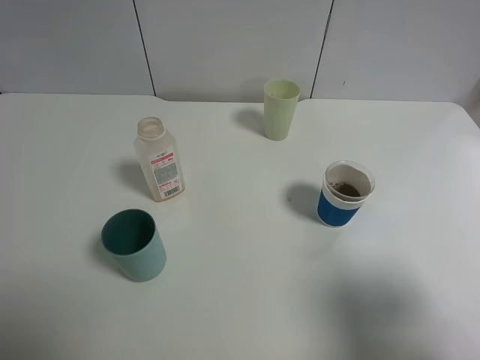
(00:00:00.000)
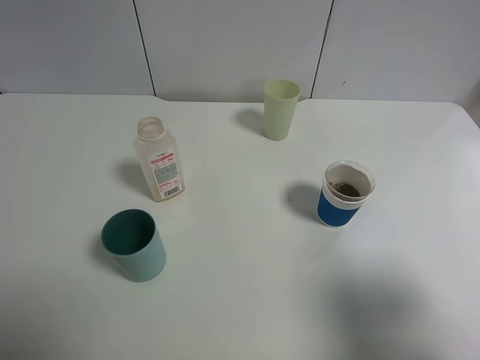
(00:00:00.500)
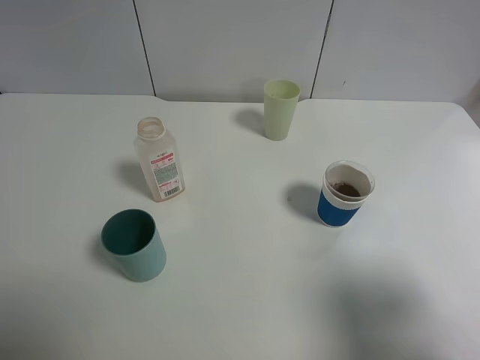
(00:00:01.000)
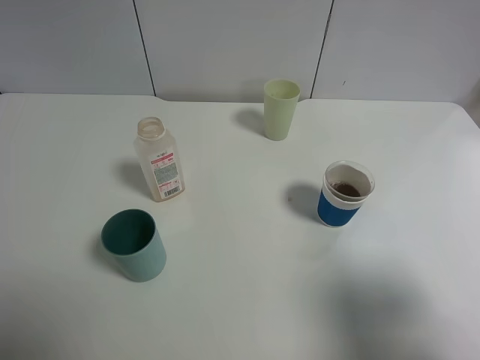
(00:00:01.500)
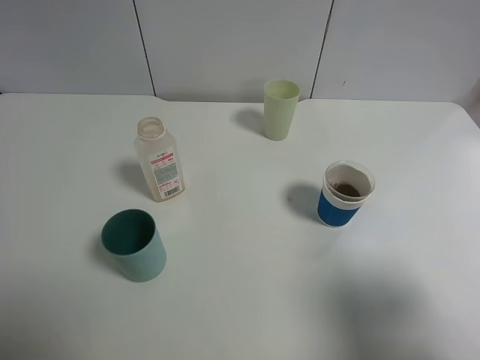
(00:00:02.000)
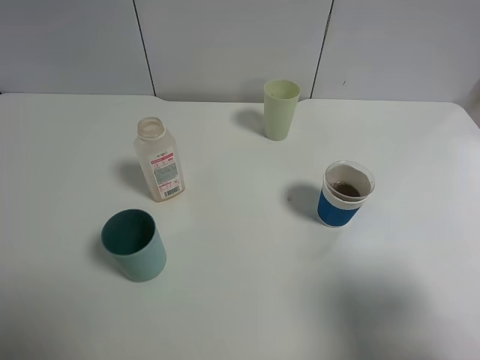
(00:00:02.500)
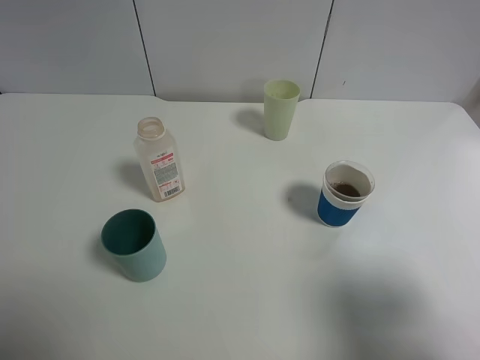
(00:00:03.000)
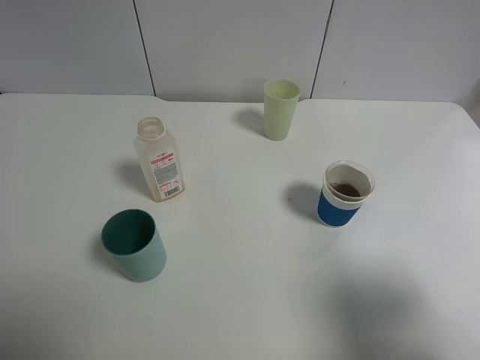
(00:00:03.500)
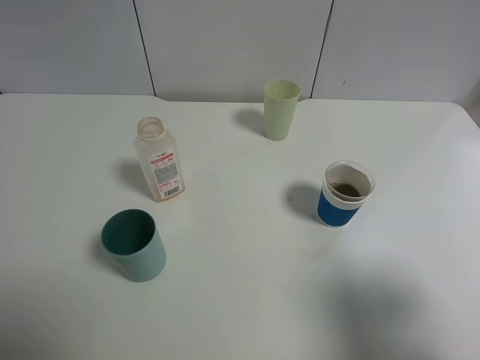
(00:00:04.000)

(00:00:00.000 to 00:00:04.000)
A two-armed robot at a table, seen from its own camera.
Task of the whole recording: use a gripper to hold the bottle of the drink and pour it into a random cup.
00:00:02.000 - 00:00:04.000: Neither gripper changes place.

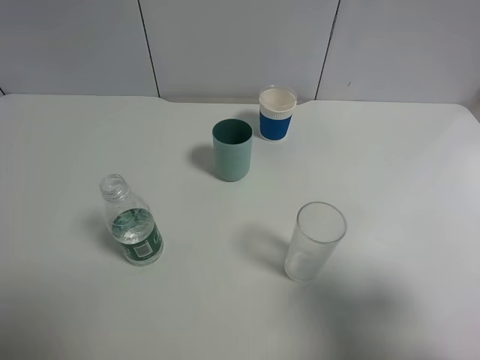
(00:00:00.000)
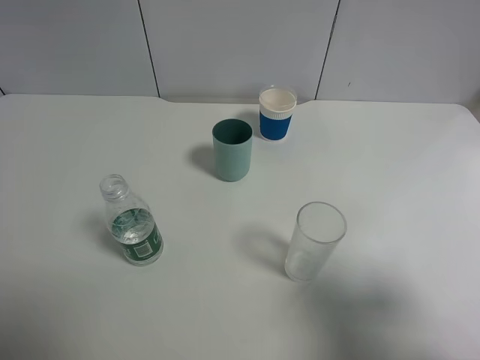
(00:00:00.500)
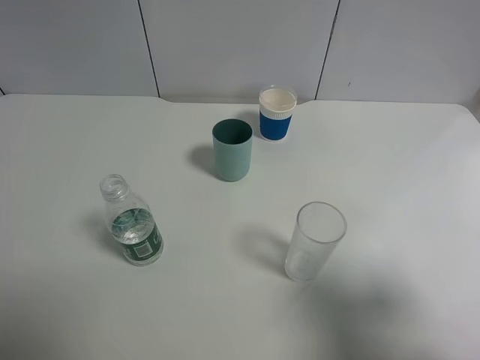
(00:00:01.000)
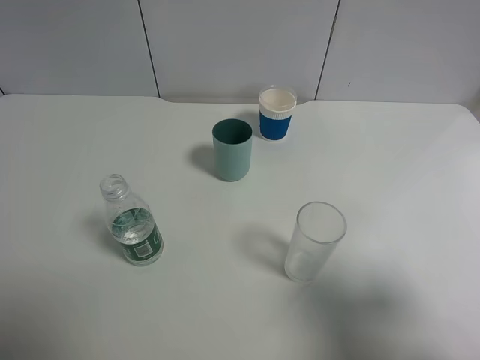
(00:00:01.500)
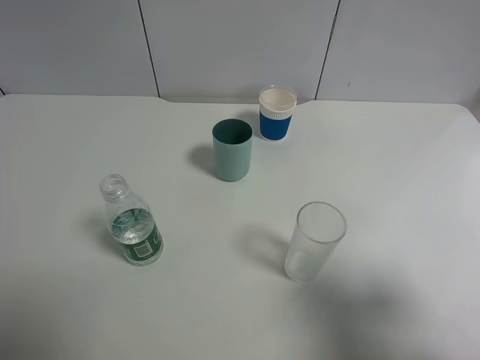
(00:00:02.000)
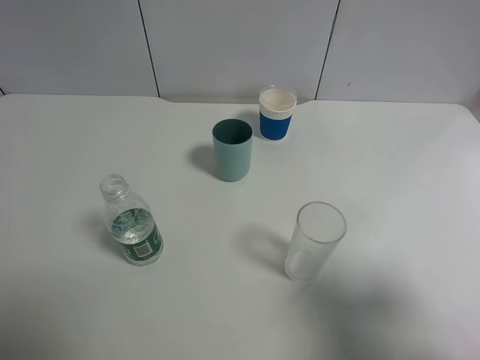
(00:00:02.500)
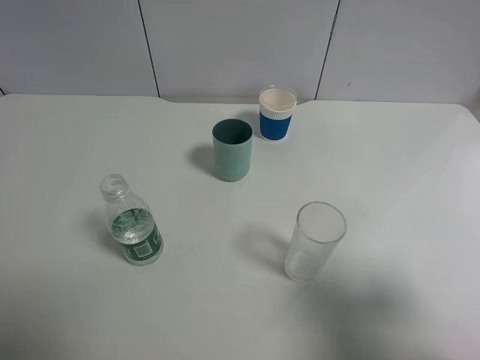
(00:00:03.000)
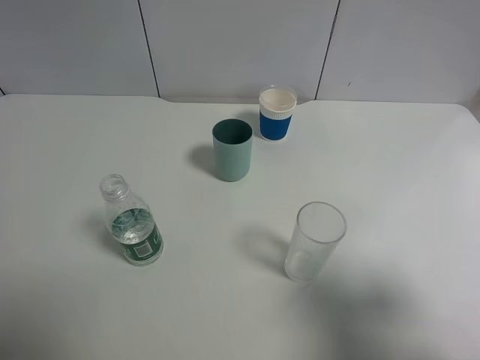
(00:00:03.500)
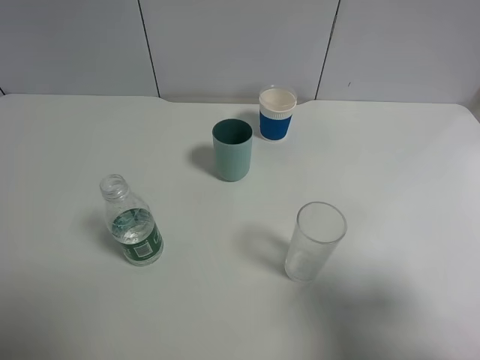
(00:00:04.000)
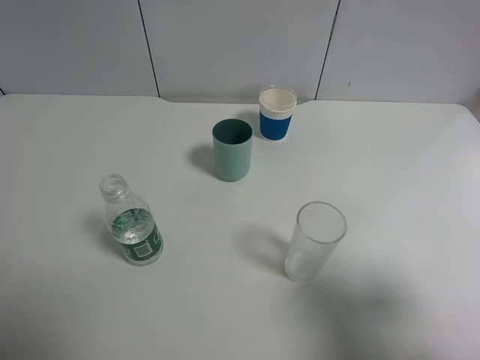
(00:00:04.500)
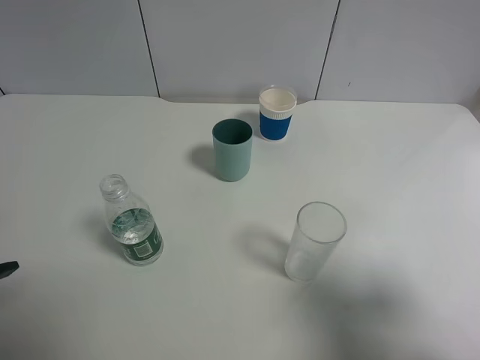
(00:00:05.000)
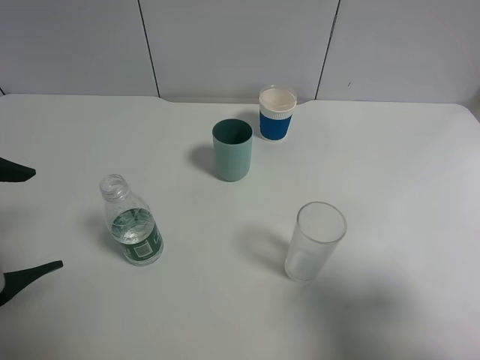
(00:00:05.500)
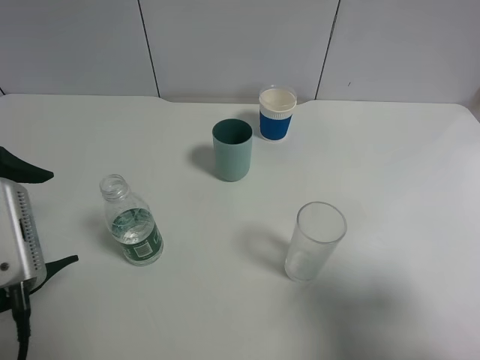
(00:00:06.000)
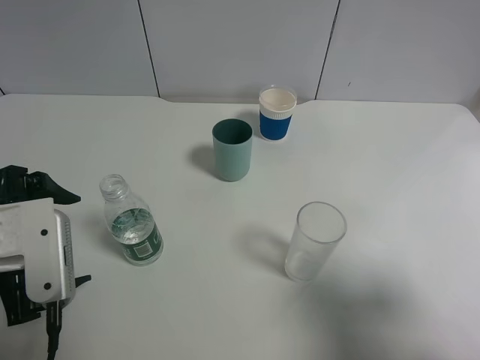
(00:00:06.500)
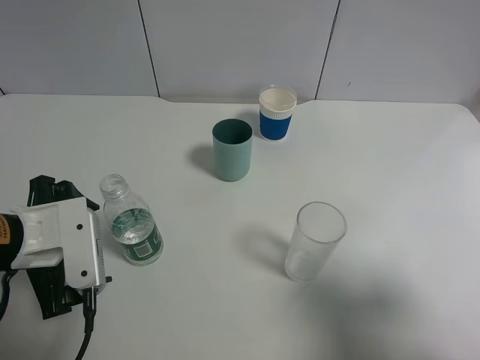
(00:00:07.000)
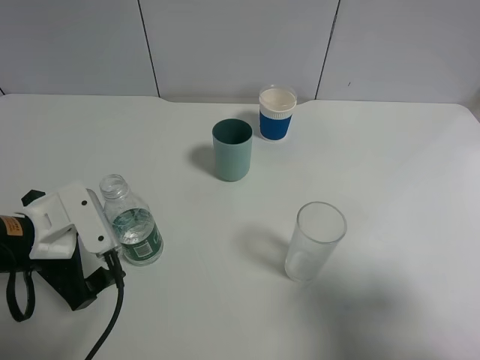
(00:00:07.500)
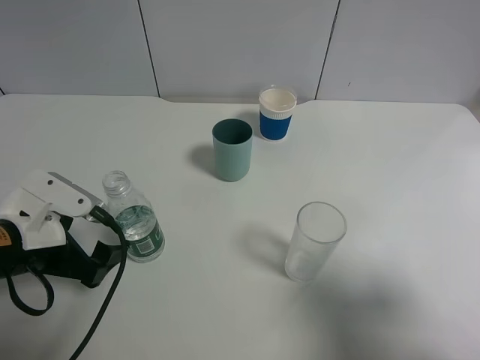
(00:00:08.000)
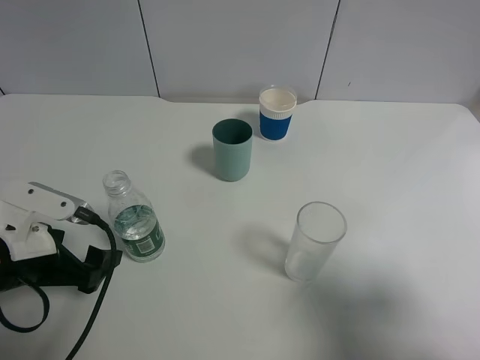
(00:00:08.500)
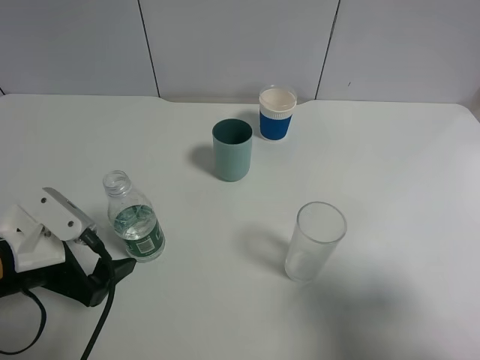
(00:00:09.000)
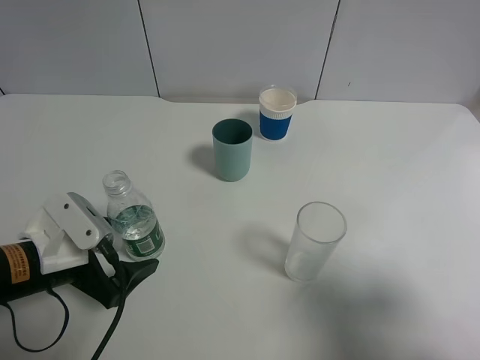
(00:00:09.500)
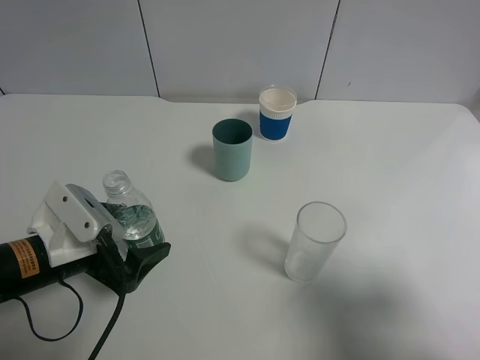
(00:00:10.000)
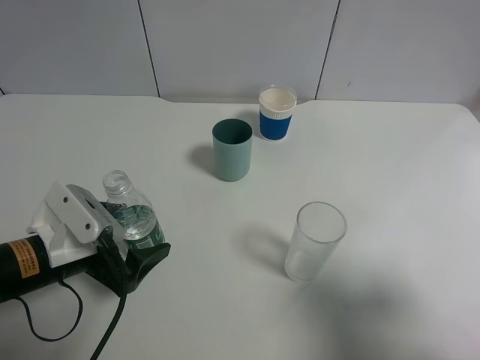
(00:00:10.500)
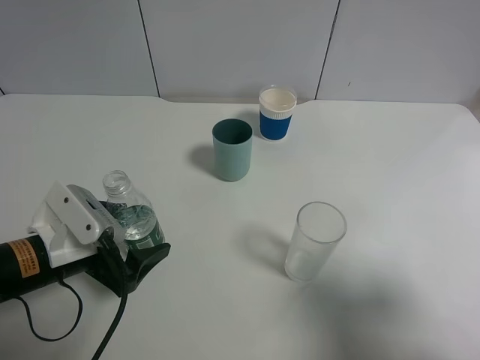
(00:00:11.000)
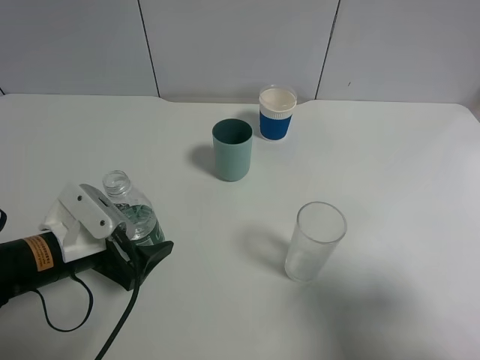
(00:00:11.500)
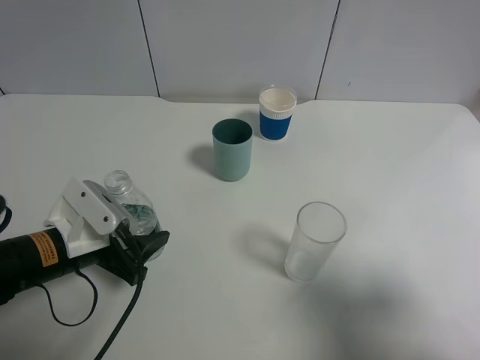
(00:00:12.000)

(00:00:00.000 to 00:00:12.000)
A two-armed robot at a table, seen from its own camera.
Task of the whole recording: use a gripper to hold the bottle of the drink and pour it into a random cup.
Step, 00:00:00.000 - 00:00:12.000: Grasp the mineral water bottle with the left gripper.
00:00:00.000 - 00:00:02.000: Both grippers stay about where they are.
00:00:04.000 - 00:00:06.000: The left gripper goes some 10 cm forward, downward and to the right.
00:00:06.000 - 00:00:08.000: The left gripper moves downward, approximately 10 cm.
00:00:10.000 - 00:00:12.000: The left gripper closes up.

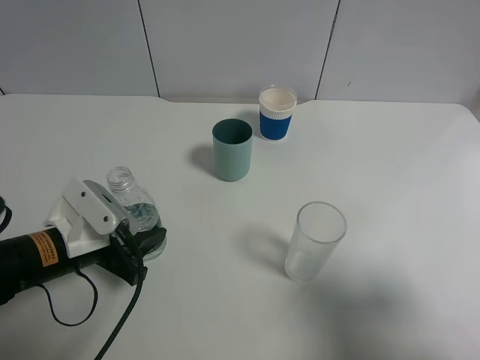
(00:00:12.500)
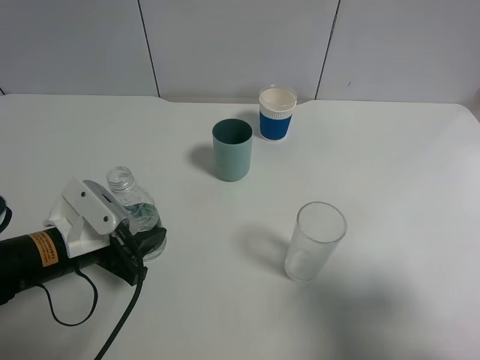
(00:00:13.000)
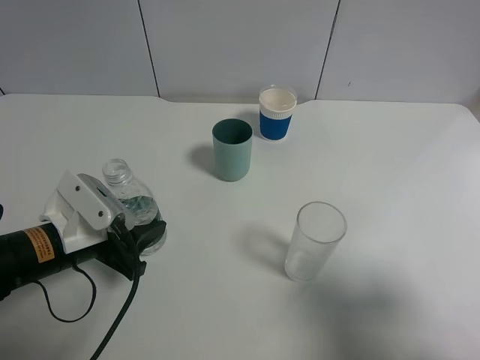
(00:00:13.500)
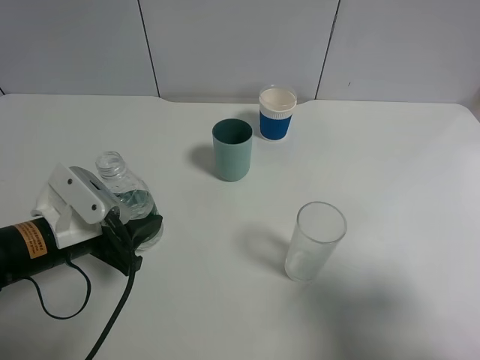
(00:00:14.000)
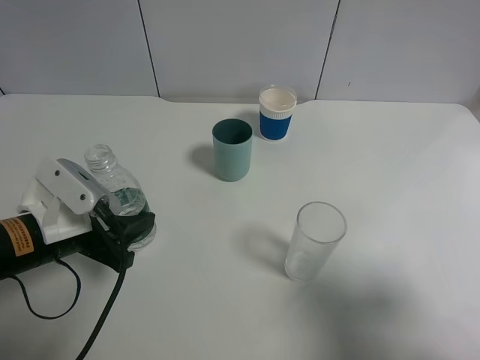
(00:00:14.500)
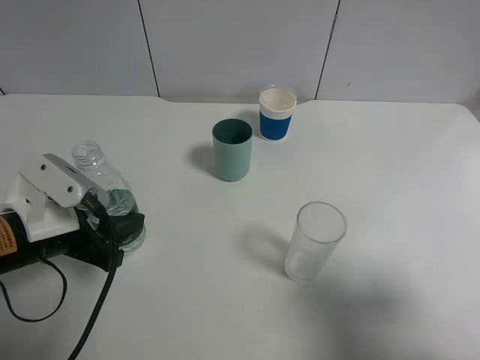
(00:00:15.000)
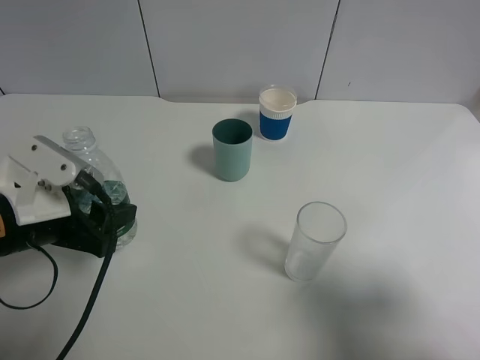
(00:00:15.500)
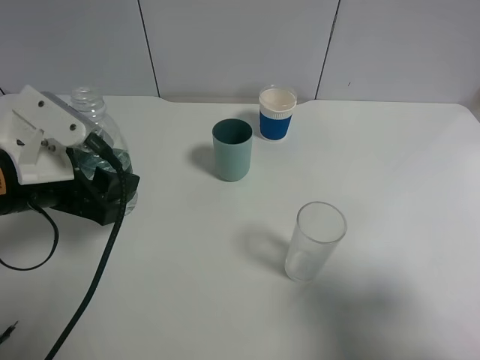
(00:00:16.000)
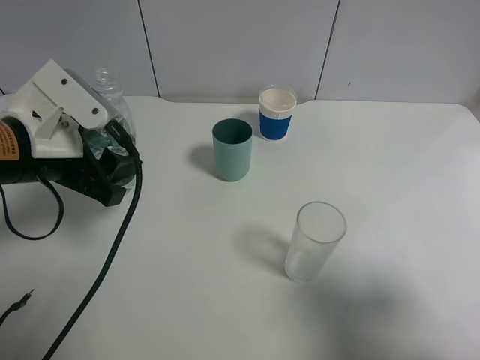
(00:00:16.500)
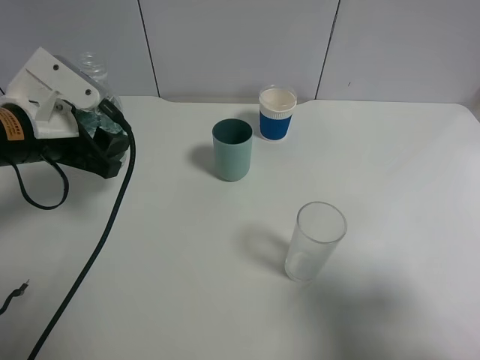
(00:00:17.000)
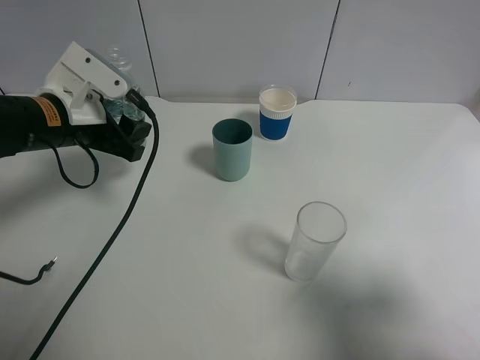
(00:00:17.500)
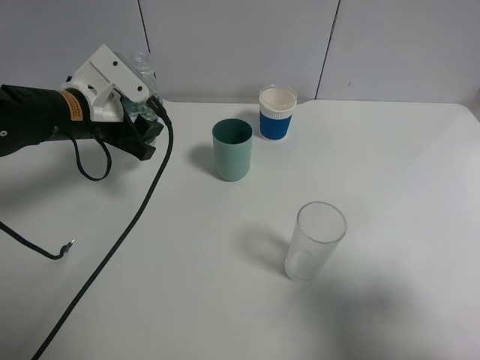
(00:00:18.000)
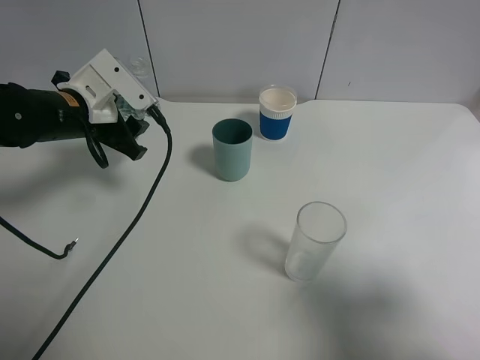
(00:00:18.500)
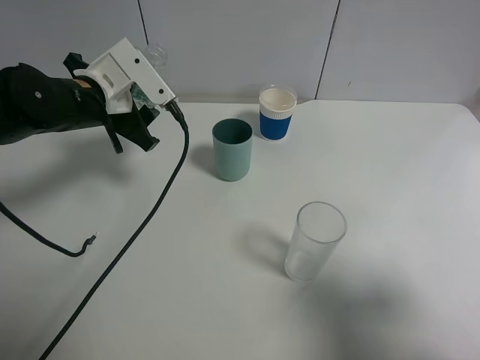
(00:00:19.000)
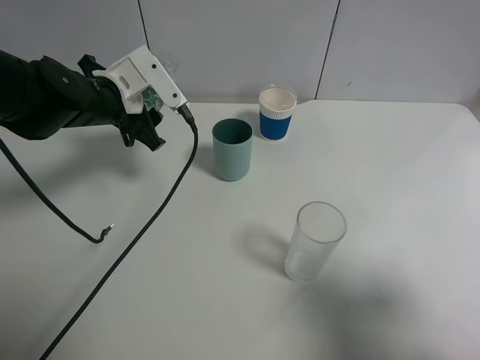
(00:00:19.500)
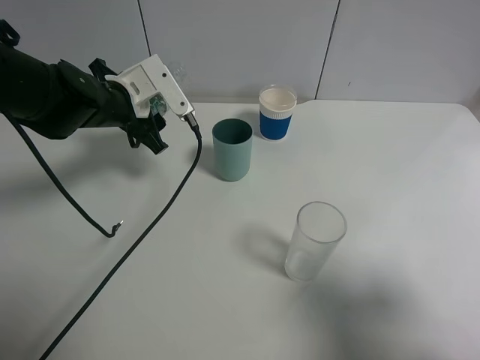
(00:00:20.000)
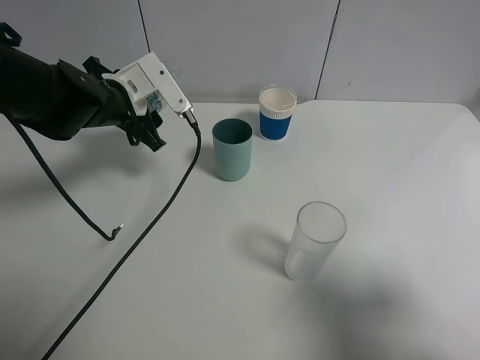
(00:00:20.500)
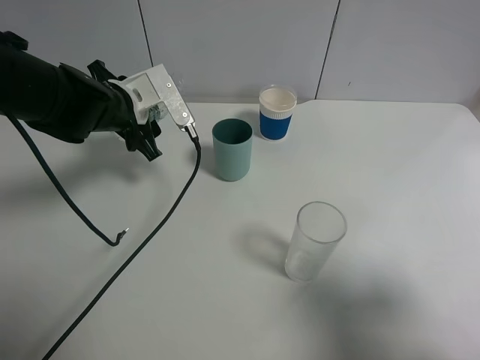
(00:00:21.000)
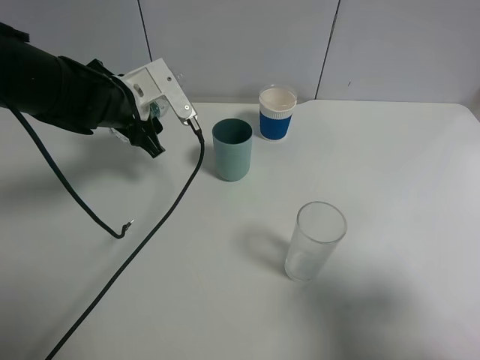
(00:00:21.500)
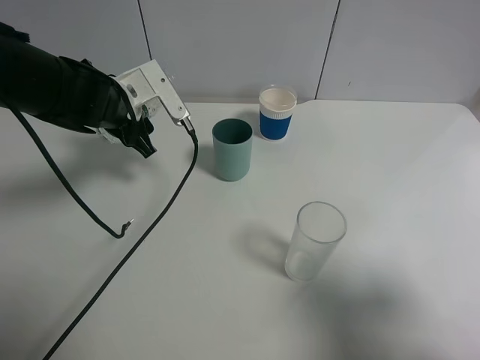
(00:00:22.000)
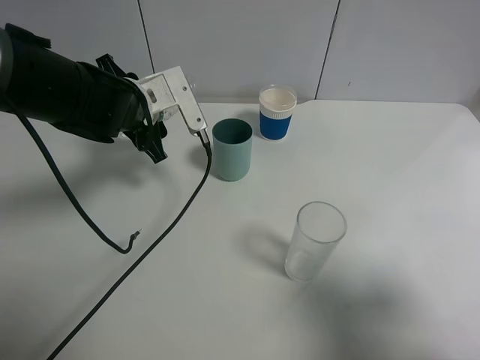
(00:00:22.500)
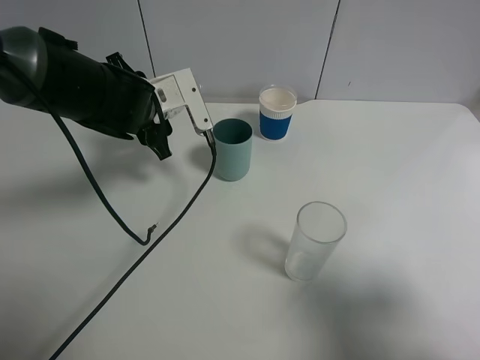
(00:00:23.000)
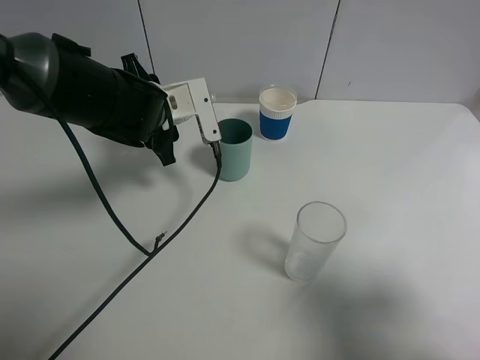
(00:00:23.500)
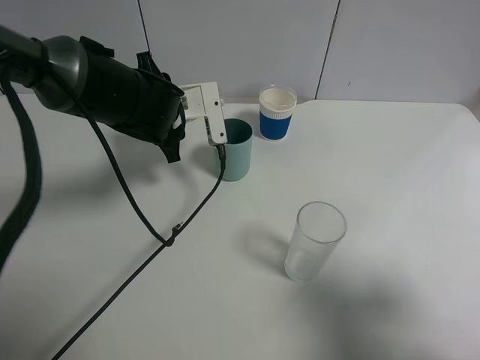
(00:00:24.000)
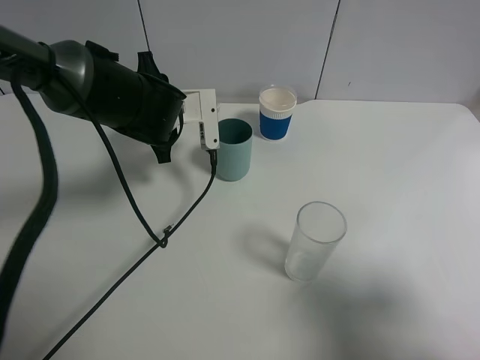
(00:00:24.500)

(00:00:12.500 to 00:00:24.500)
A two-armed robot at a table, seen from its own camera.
Task of the whole recording: use a gripper to hold the bottle of the drink and pour it into a random cup.
00:00:12.500 - 00:00:14.500: The grippers move only a little.
00:00:14.500 - 00:00:16.500: The left gripper shifts about 10 cm upward.
00:00:16.500 - 00:00:18.500: The left gripper is displaced forward by about 10 cm.
00:00:18.500 - 00:00:20.500: There are only small adjustments of the grippers.
00:00:20.500 - 00:00:22.500: There are only small adjustments of the grippers.
